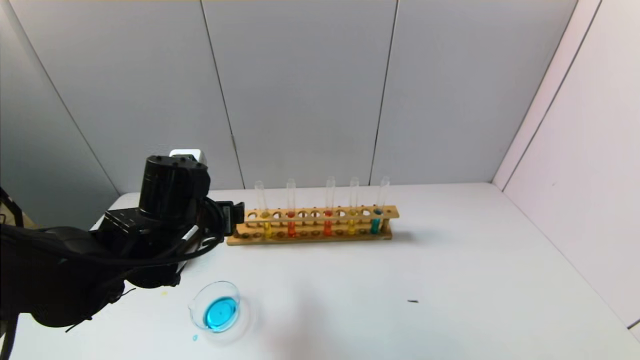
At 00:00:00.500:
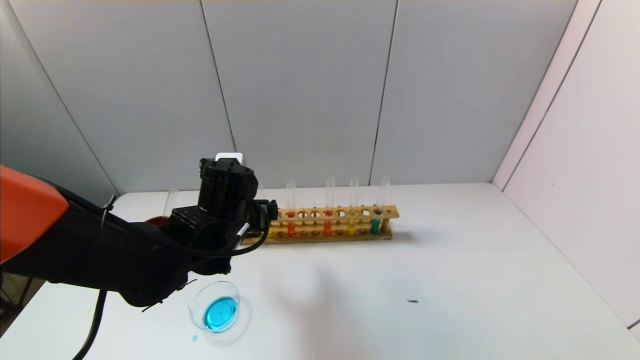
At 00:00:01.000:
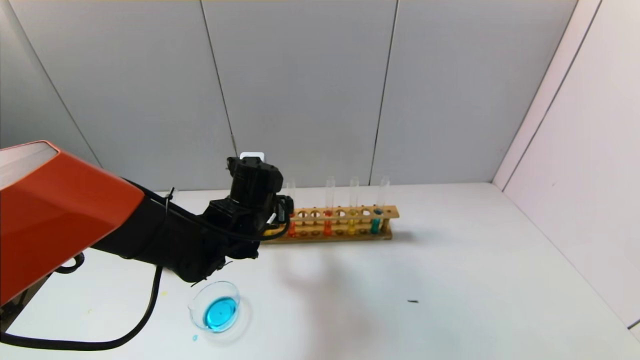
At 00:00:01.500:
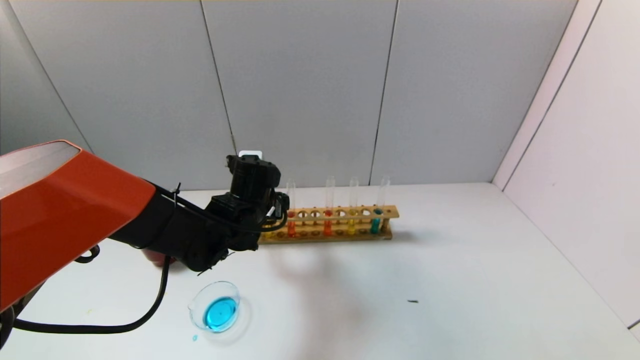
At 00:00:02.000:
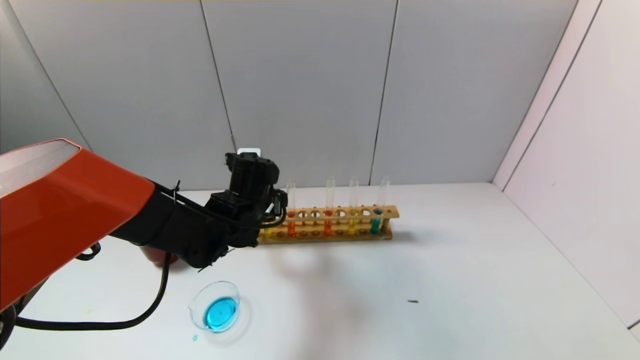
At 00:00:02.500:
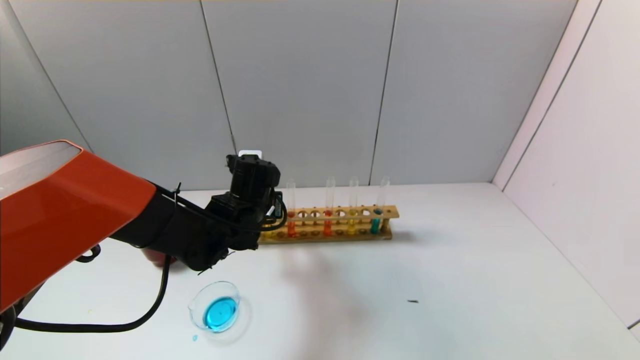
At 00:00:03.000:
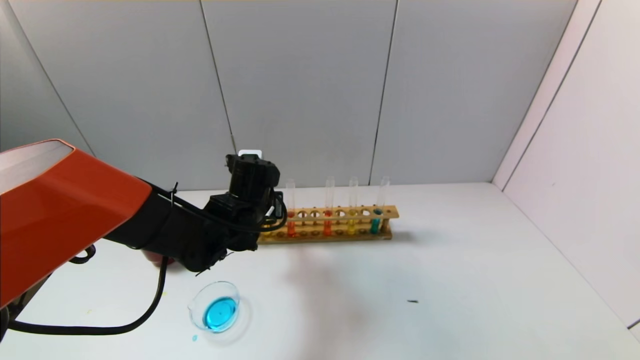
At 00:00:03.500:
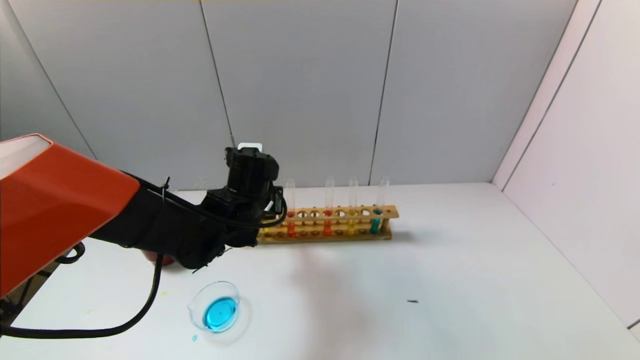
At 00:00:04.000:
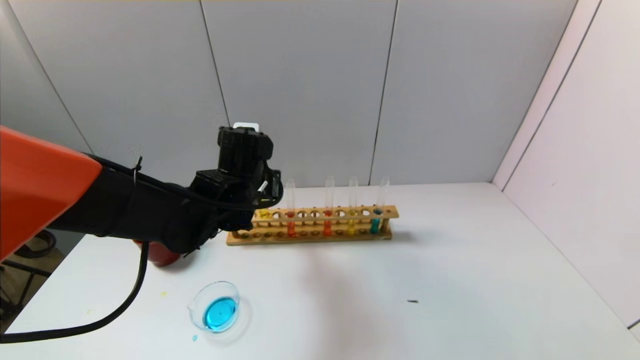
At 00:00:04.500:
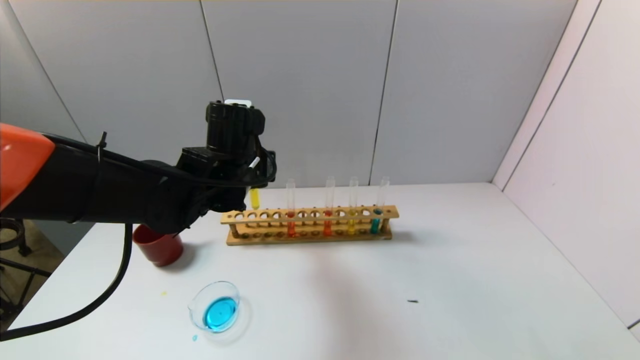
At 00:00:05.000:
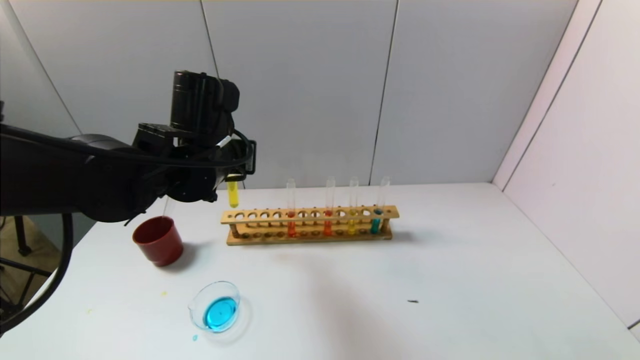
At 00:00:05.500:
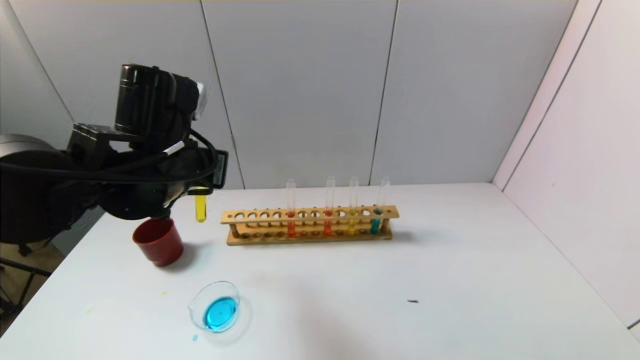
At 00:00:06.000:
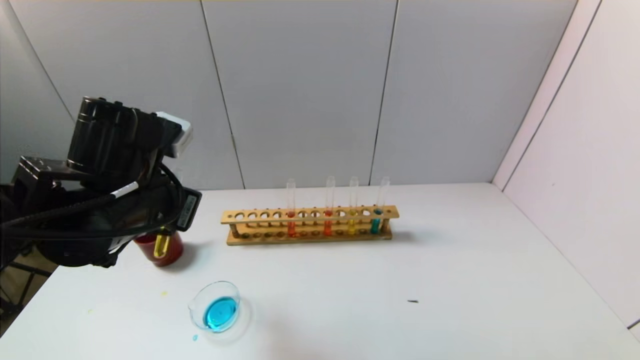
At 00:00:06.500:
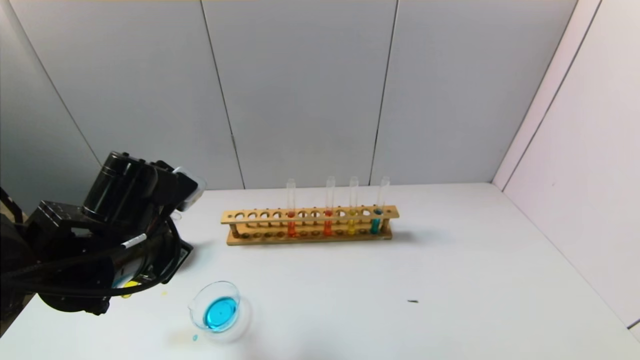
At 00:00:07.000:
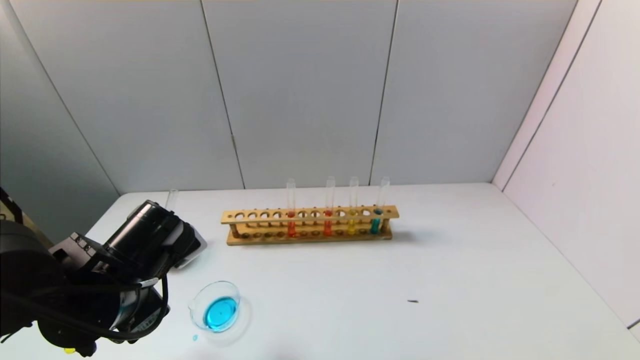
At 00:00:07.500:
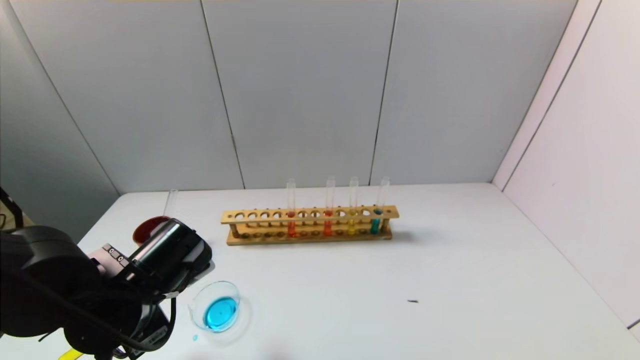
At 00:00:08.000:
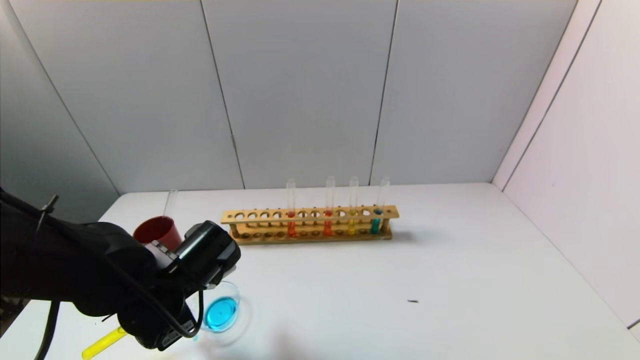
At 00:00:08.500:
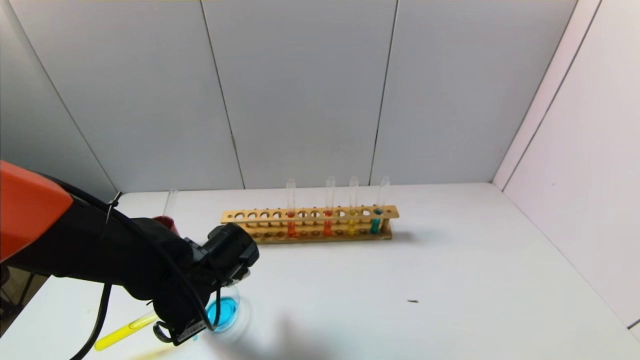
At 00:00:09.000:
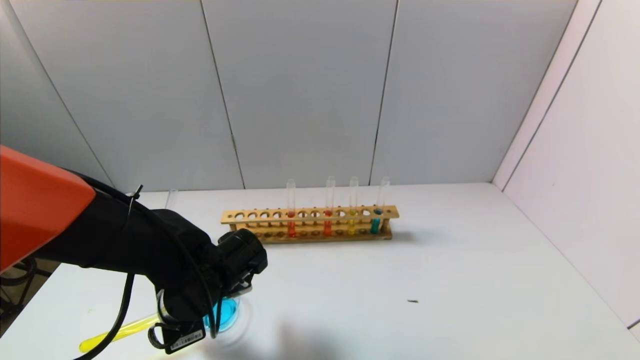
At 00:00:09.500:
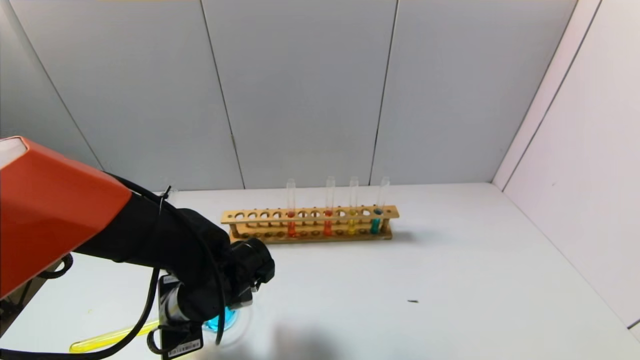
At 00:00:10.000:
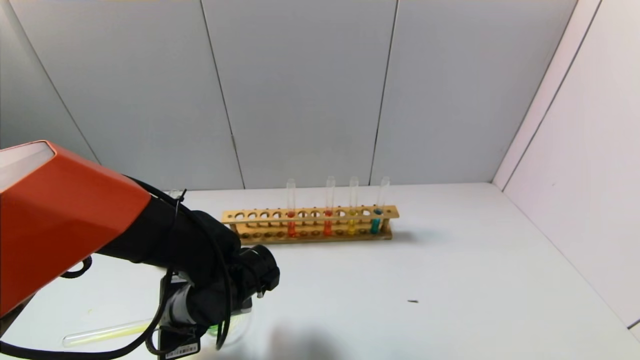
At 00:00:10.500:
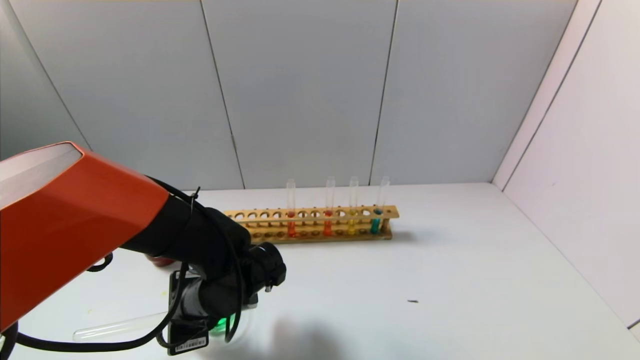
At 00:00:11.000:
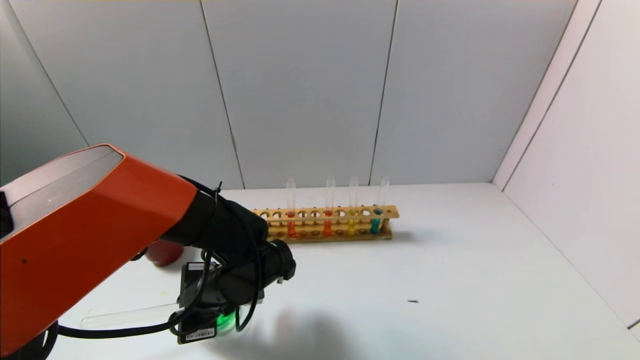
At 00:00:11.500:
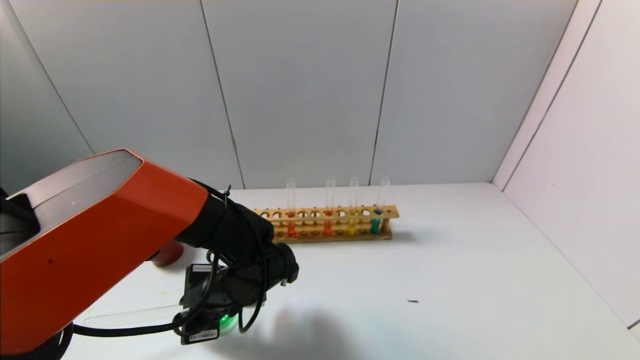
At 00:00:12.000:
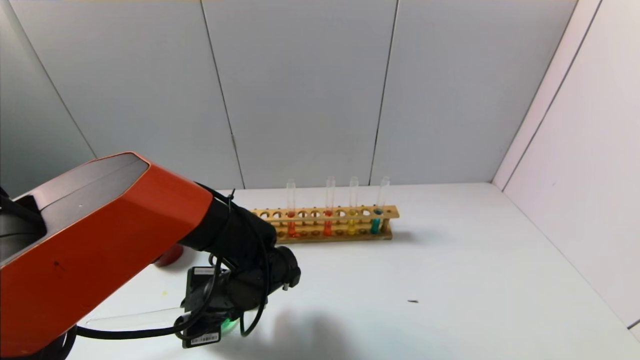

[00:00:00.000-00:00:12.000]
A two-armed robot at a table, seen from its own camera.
Task of the whole recording: pick up the test tube with yellow pigment and the test tube with blue pigment by grippers and pour them into the beaker.
Step, 00:00:00.000 to 00:00:02.500: Grasp the yellow reagent with the left gripper.
00:00:00.000 to 00:00:02.000: The left gripper moves forward and to the right, roughly 10 cm.
00:00:02.000 to 00:00:04.000: The left gripper moves upward, some 5 cm, and closes its fingers.
00:00:04.000 to 00:00:06.000: The left gripper travels backward, to the left and upward by roughly 15 cm.
00:00:06.000 to 00:00:08.000: The left gripper moves downward, roughly 15 cm.
00:00:10.000 to 00:00:12.000: There are only small adjustments of the grippers.

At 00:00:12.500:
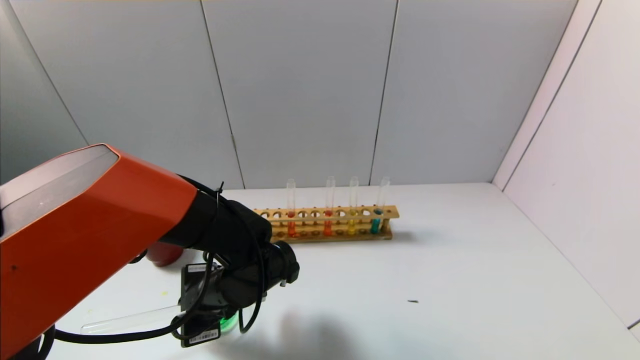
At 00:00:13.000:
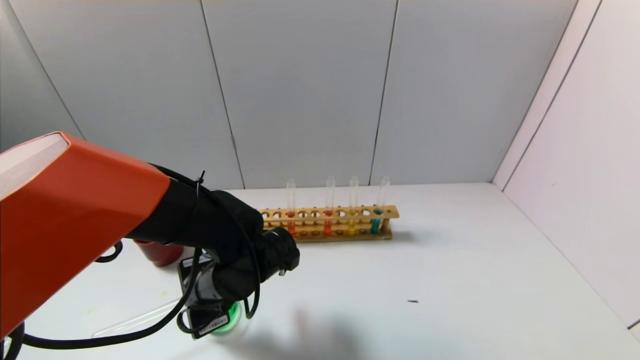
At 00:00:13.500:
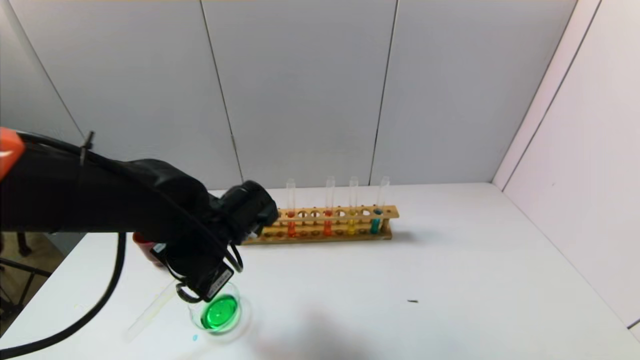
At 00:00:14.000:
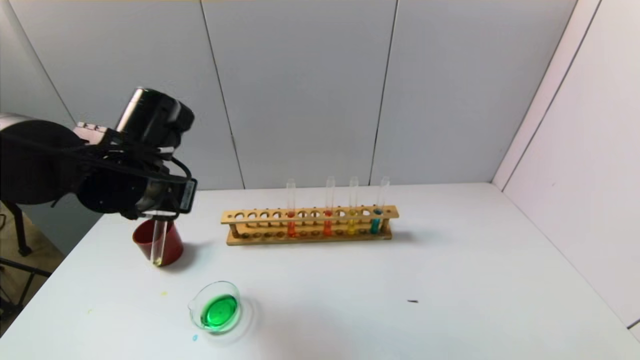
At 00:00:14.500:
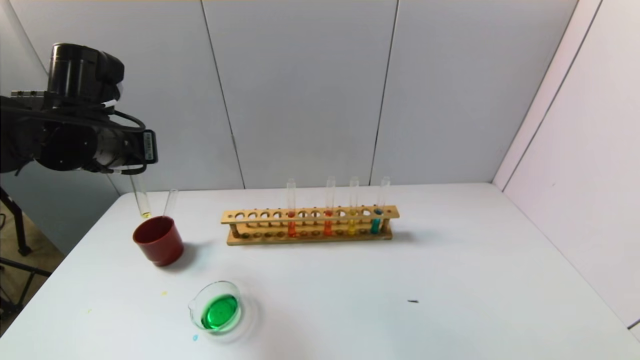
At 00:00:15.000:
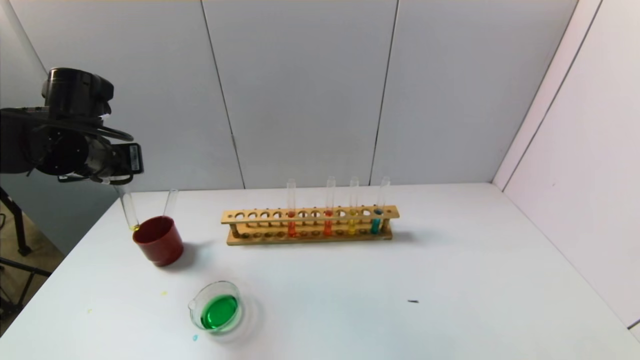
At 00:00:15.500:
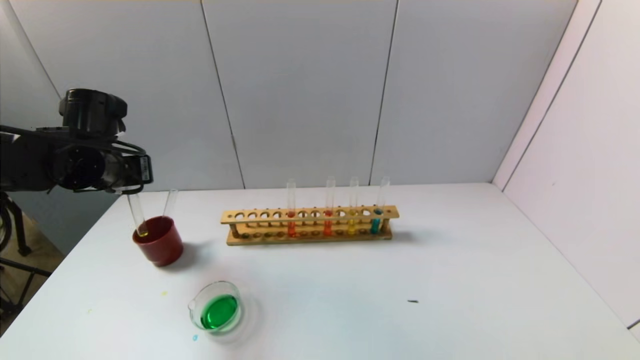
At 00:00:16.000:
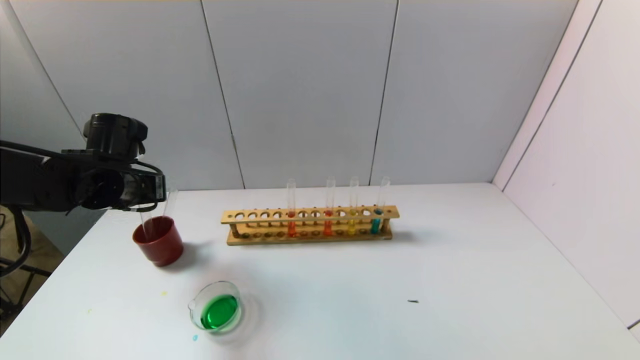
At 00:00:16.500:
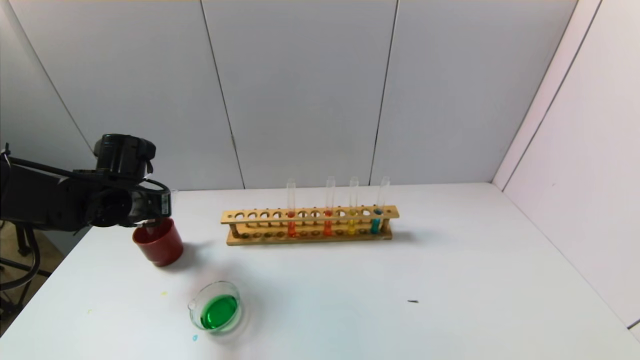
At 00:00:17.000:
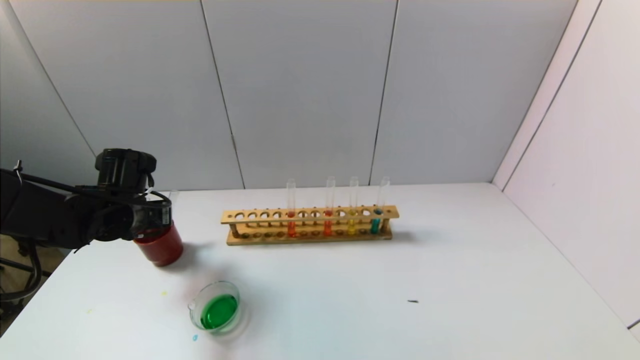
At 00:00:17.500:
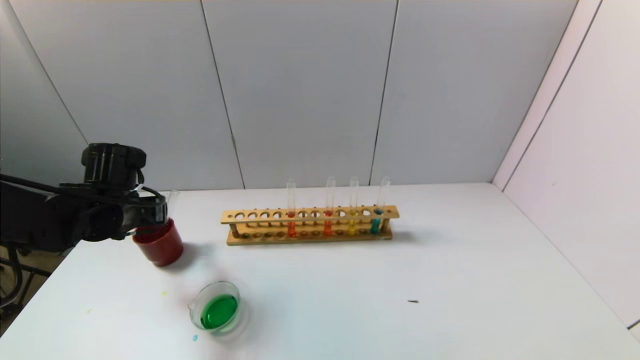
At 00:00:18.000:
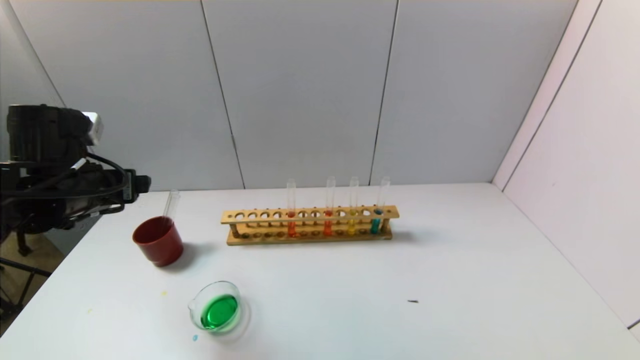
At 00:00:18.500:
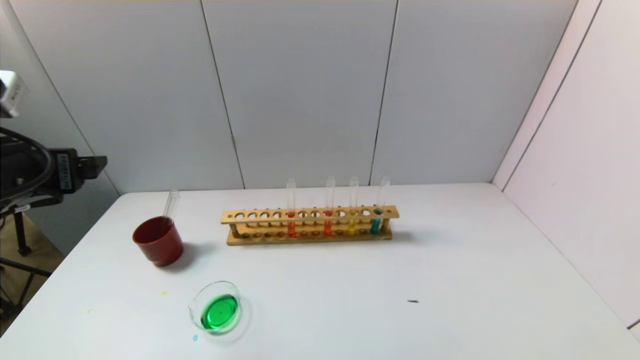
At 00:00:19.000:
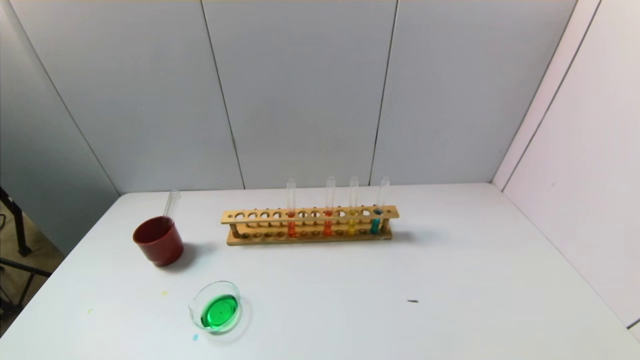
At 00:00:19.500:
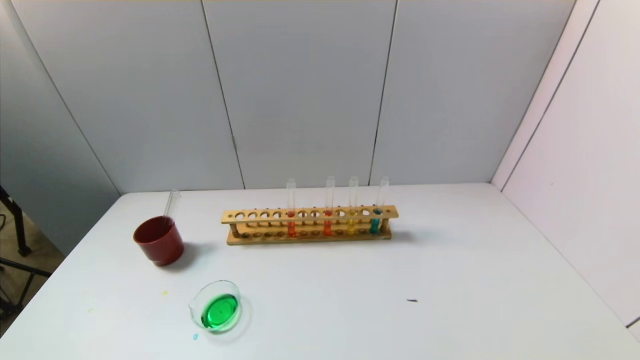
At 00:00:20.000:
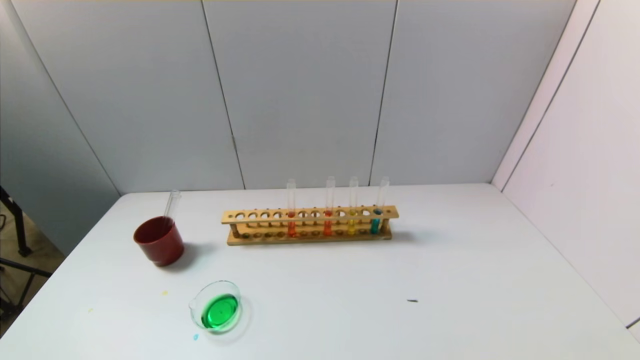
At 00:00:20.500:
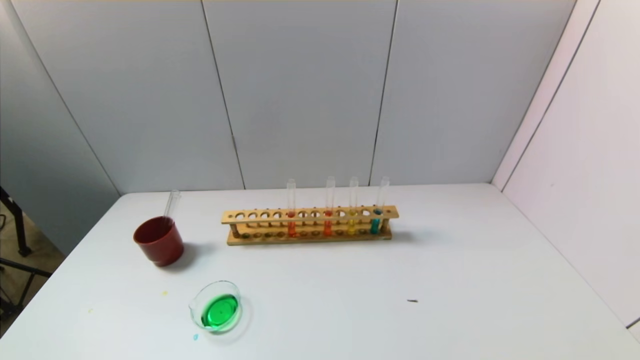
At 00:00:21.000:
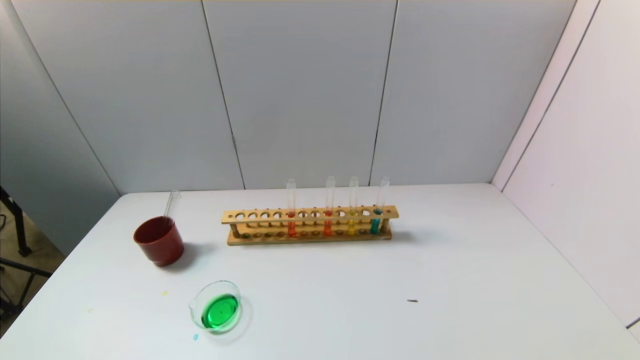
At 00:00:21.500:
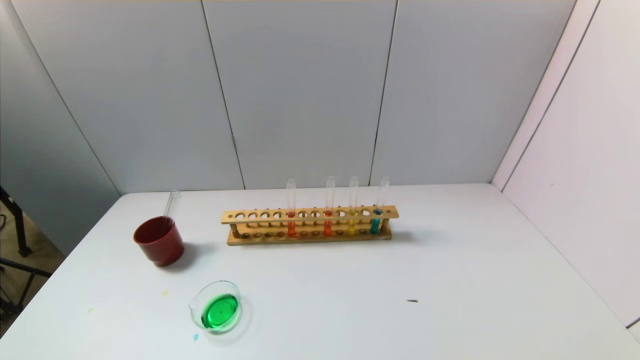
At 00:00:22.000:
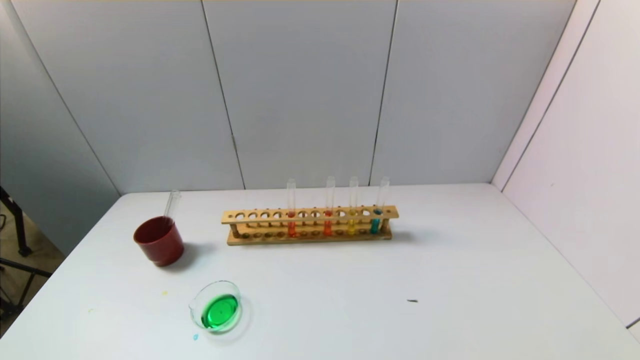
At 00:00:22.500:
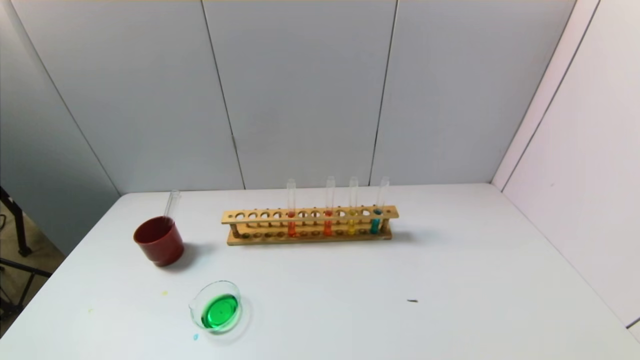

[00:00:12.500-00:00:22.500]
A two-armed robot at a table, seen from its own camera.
Task of the whole recording: pick up the test tube with yellow pigment and the test tube with blue pigment by grippers and pour them into the beaker.
Step, 00:00:12.500 to 00:00:17.000: Place the test tube into the brown cup with the left gripper.
00:00:12.500 to 00:00:14.500: The left gripper travels upward and to the left by approximately 25 cm.
00:00:14.500 to 00:00:16.500: The left gripper moves downward, about 10 cm.
00:00:16.500 to 00:00:18.500: The left gripper heads backward and upward, covering about 20 cm, and opens its fingers.
00:00:18.500 to 00:00:20.500: The left gripper shifts approximately 30 cm backward and downward.
